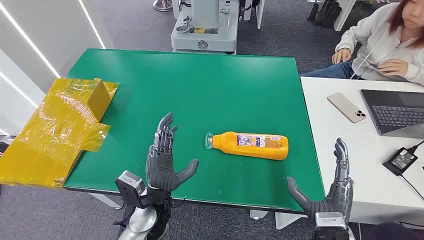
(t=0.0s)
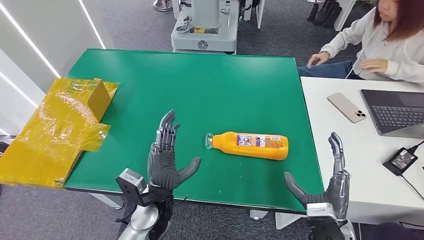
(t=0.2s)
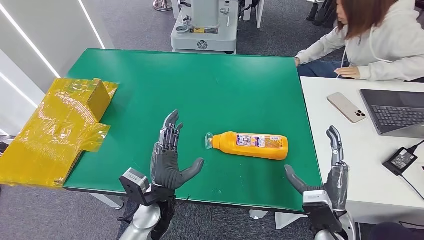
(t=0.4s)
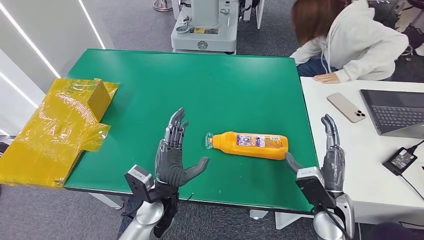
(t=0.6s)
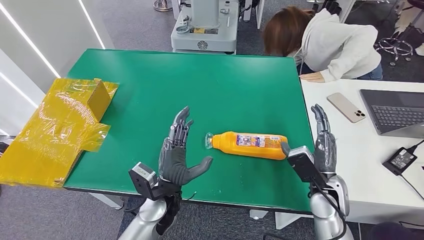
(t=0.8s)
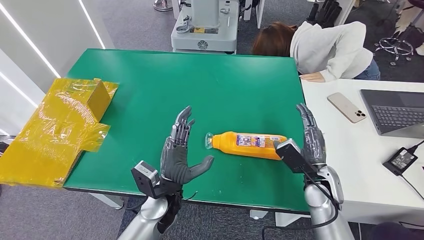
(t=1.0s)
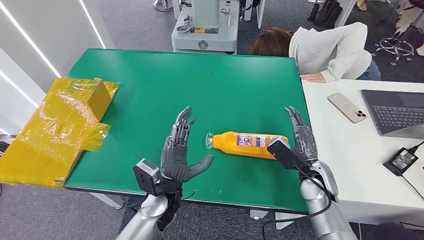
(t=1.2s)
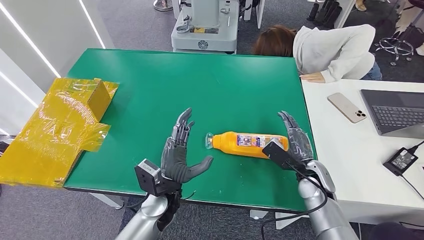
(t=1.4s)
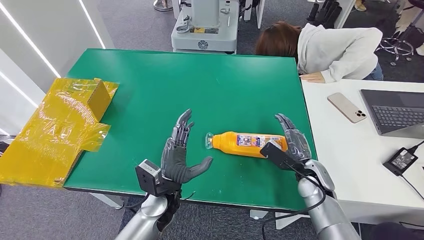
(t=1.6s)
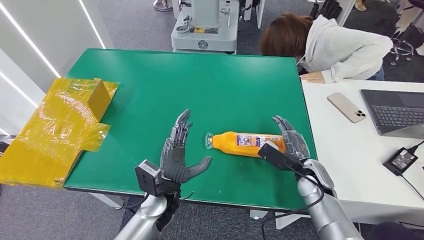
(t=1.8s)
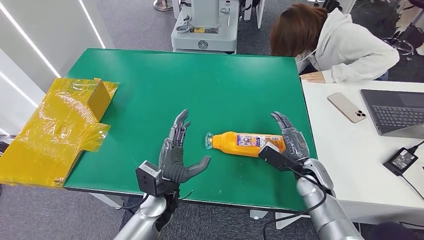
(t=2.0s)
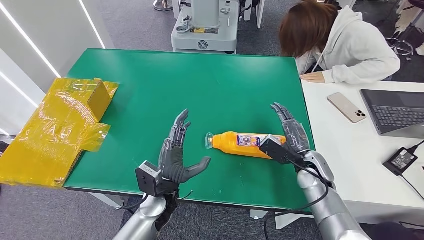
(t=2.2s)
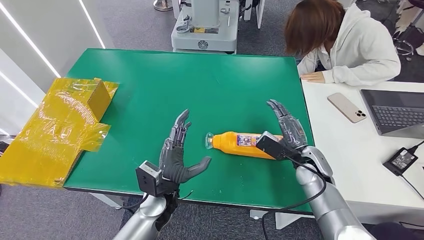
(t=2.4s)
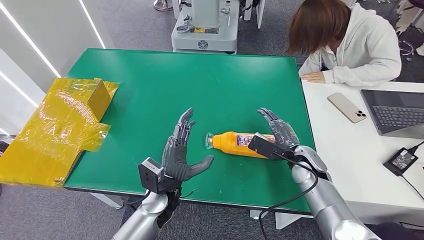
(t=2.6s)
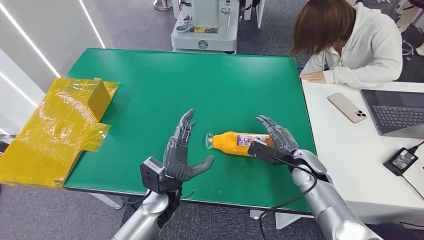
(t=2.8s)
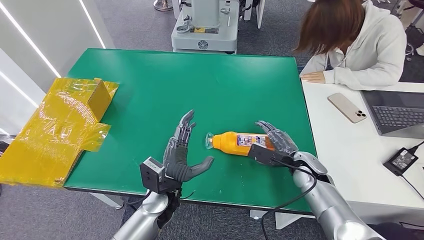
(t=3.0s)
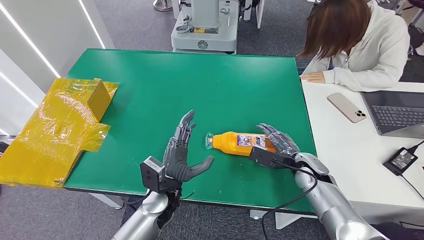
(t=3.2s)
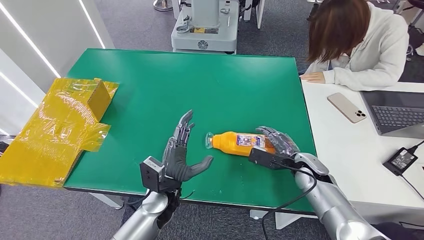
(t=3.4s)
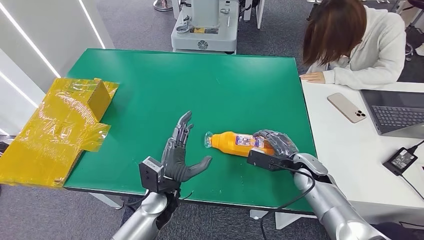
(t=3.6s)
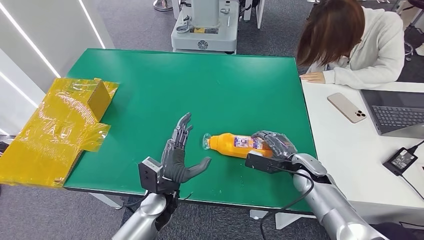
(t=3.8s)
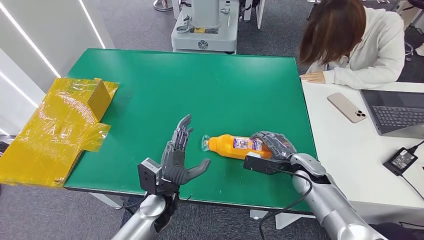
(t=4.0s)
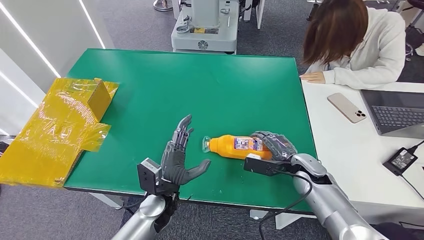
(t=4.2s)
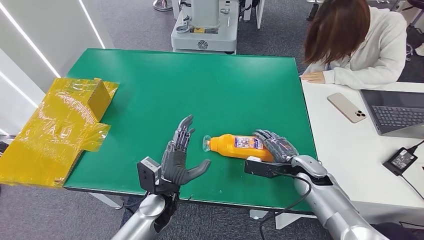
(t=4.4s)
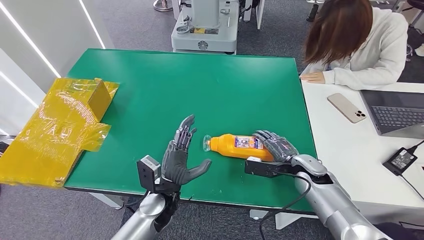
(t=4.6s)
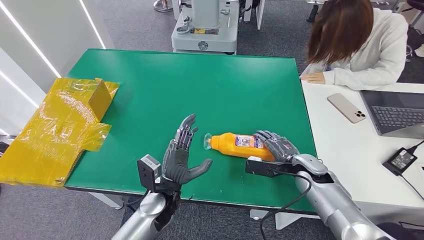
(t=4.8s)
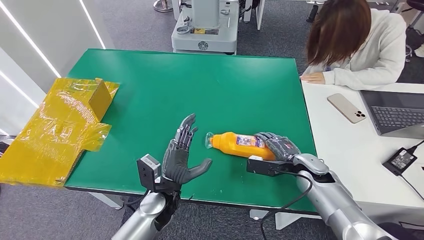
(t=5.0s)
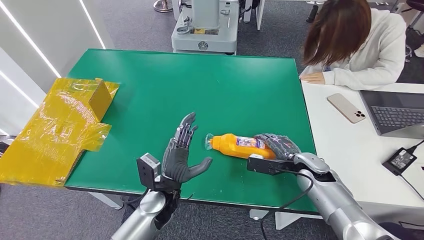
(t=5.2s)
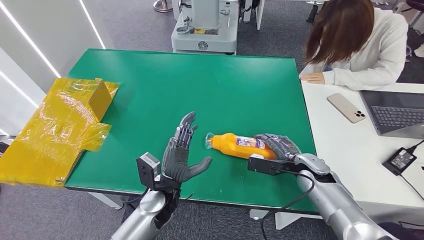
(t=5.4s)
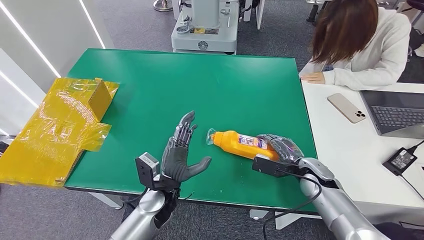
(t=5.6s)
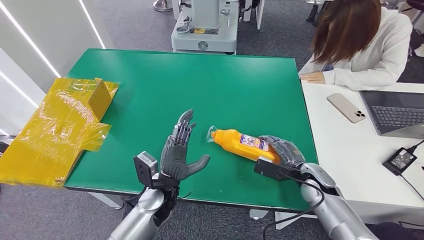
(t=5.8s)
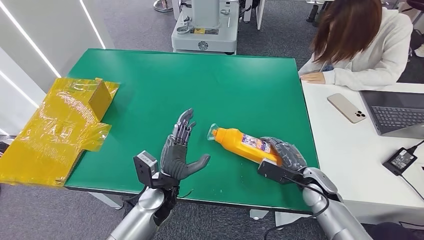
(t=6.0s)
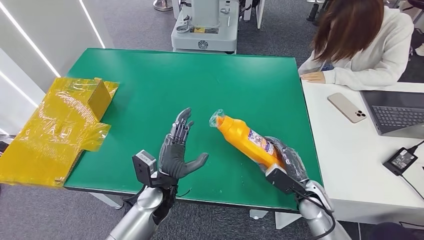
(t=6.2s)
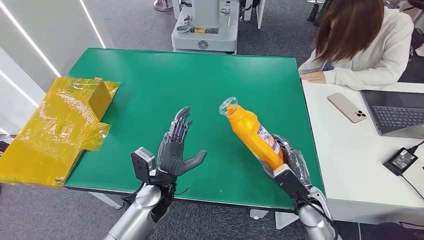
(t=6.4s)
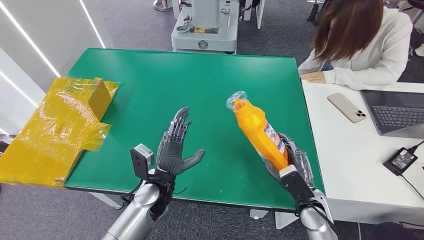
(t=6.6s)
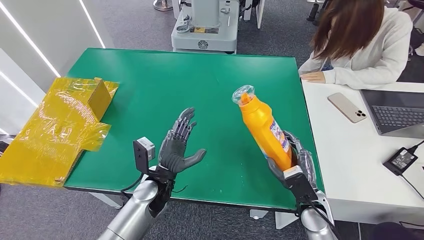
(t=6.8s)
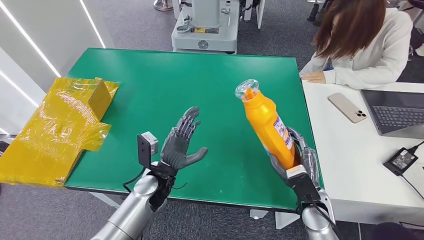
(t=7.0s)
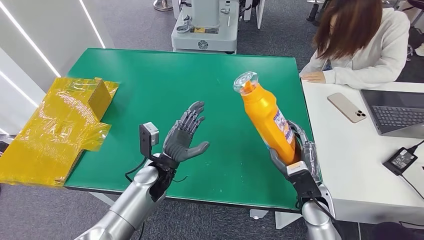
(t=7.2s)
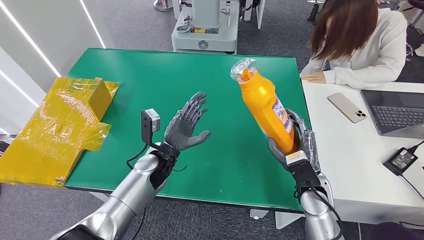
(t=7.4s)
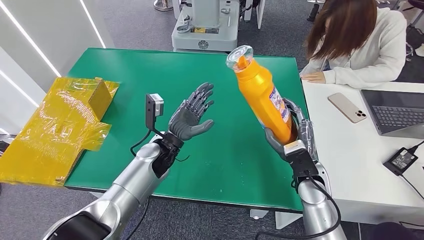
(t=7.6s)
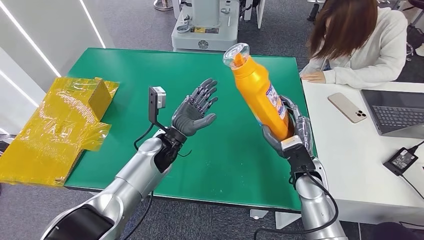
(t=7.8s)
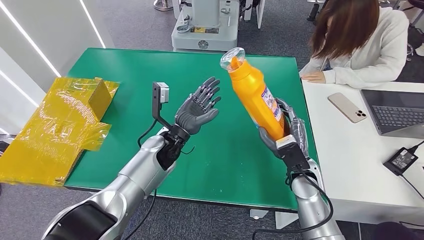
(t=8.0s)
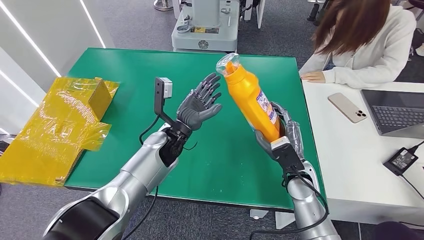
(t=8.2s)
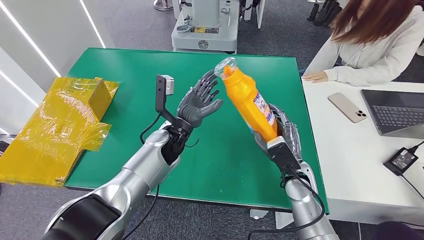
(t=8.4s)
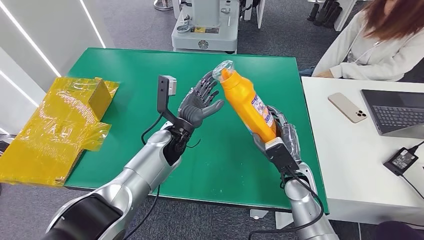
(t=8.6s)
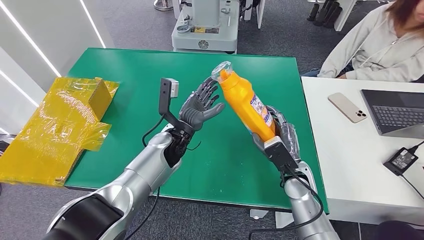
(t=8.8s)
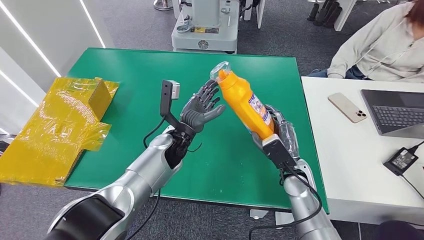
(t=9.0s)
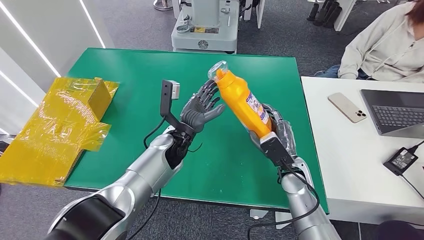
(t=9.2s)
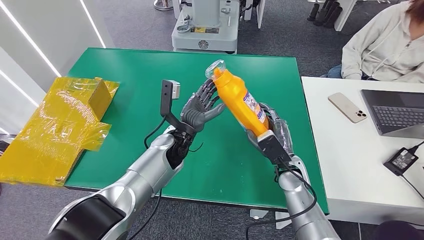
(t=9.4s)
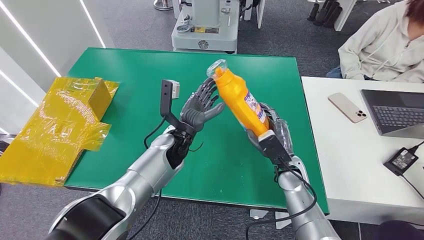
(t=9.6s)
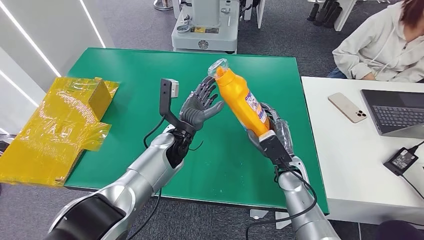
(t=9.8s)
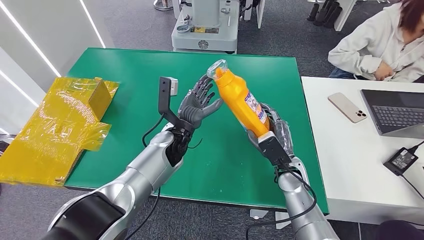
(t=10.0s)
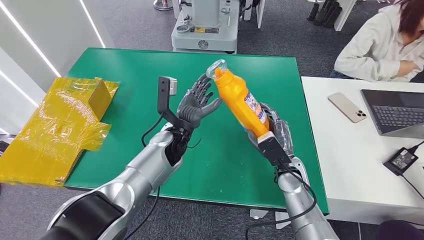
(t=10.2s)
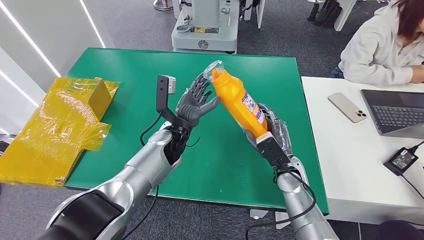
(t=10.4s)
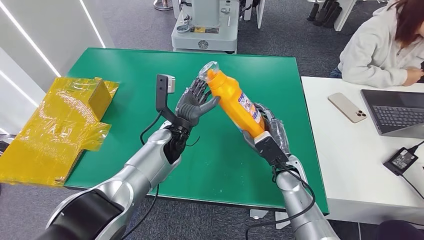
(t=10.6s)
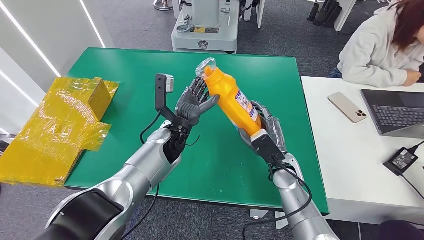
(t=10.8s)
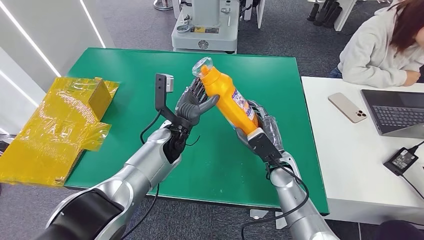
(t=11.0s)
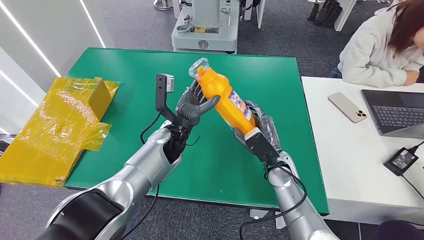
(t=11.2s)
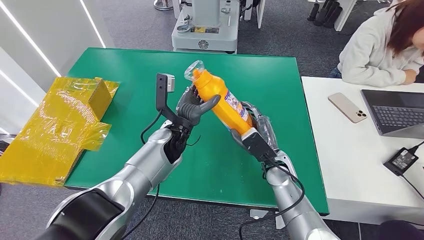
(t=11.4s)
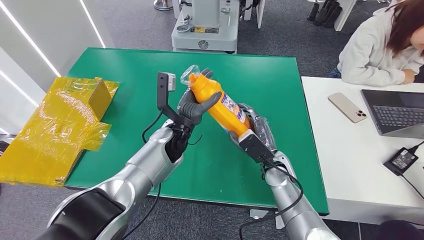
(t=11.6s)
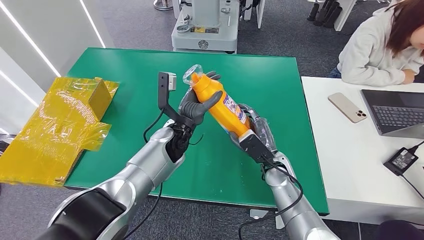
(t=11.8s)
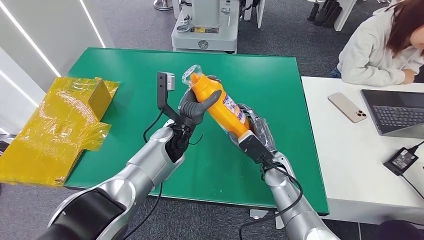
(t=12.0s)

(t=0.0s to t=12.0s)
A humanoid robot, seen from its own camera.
Step, t=0.0s - t=8.0s: Pick up the bottle from the table.
t=1.6s - t=3.0s: The hands make only small movements.
t=3.0s - t=4.4s: The hands move only a little.
t=9.0s - t=12.0s: The hands move only a little.

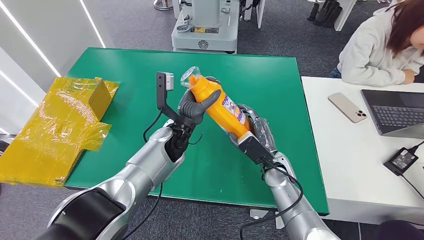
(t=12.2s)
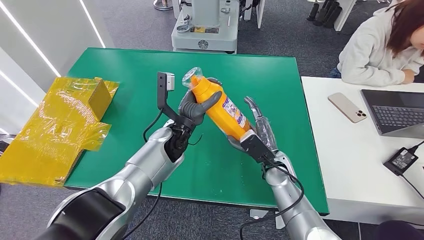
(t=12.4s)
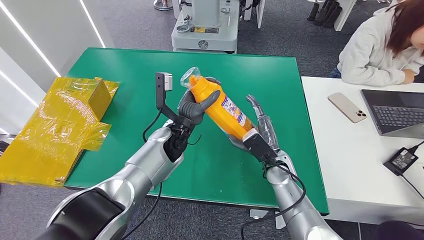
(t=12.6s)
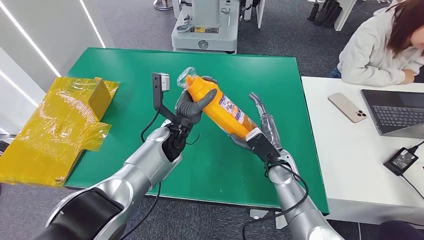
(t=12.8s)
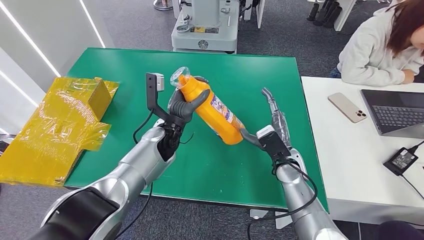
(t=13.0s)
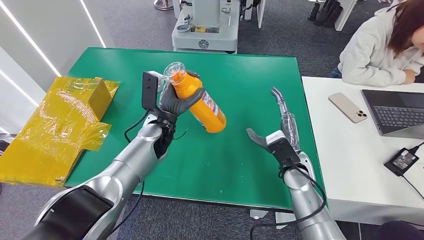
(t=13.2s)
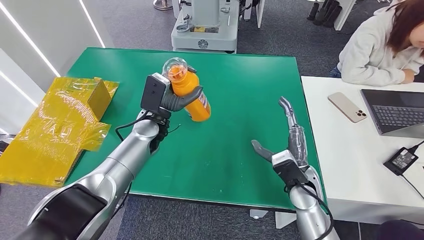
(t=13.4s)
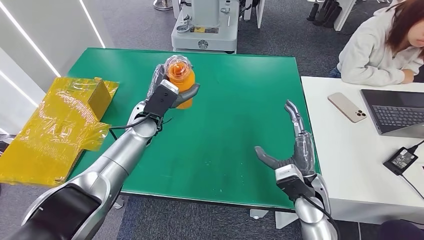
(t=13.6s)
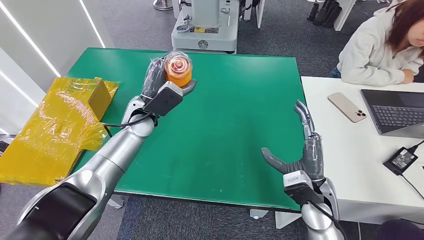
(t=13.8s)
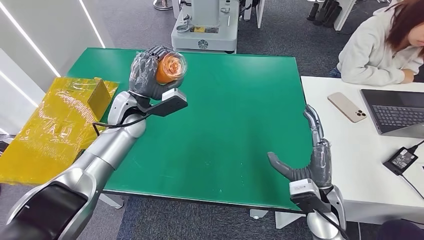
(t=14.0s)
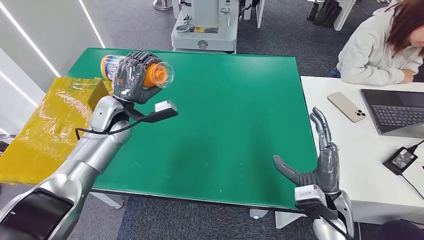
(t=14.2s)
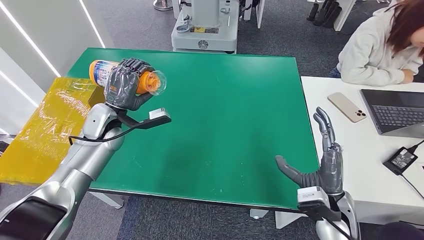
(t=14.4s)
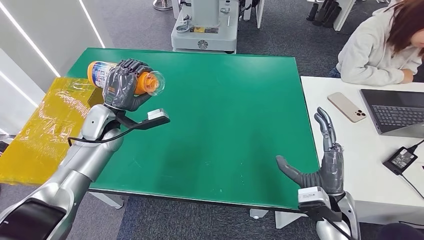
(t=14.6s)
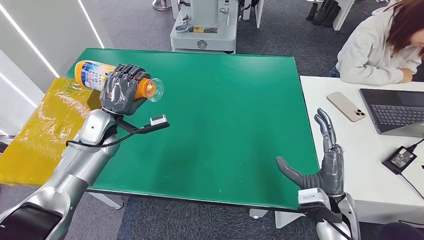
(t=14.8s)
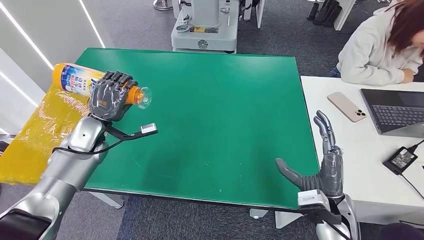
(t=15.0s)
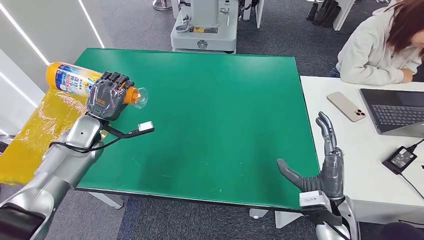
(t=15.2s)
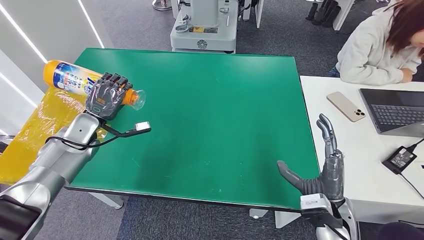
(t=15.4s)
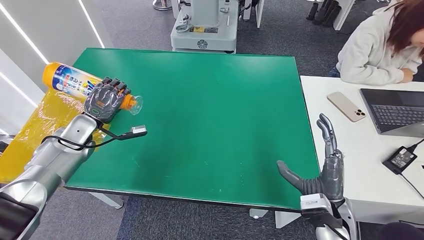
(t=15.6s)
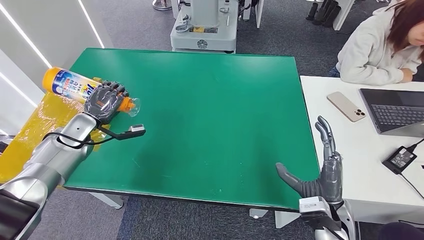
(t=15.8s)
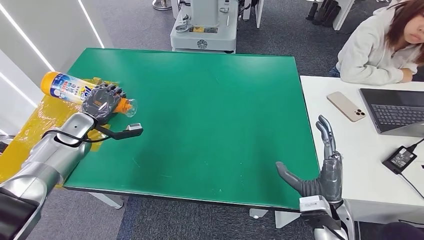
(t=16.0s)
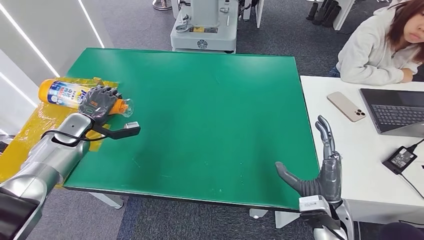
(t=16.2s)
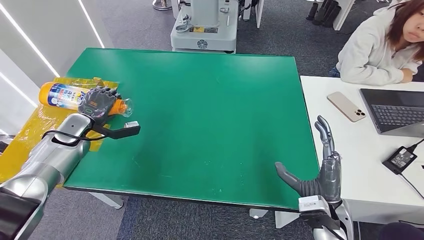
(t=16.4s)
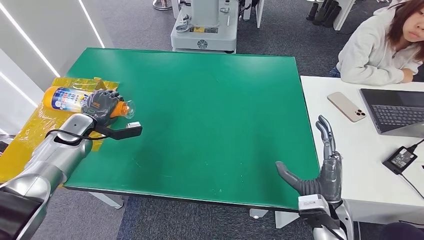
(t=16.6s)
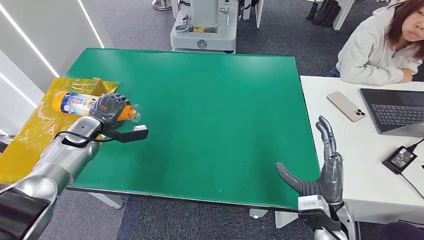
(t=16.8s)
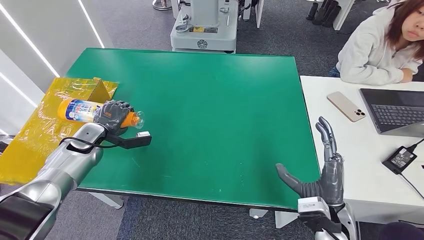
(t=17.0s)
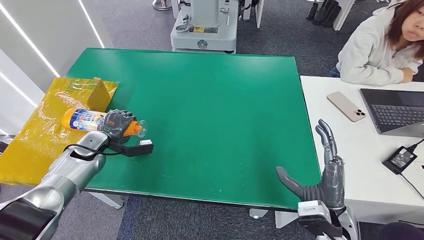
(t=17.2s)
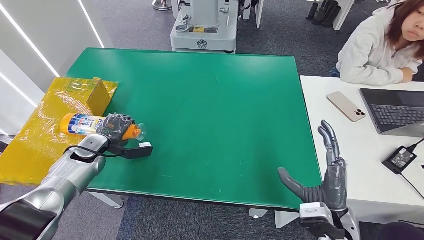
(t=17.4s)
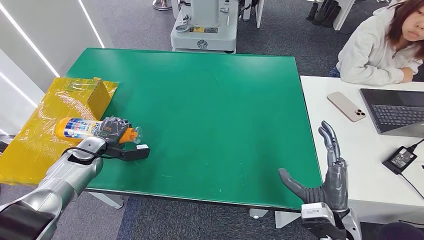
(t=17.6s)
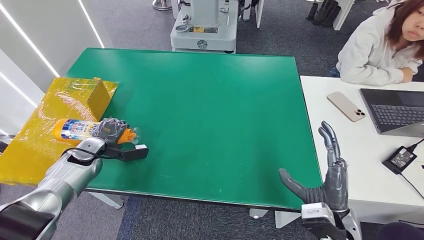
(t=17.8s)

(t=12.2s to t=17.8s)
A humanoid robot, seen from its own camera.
t=15.0s - t=16.4s: The left hand goes some 5 cm to the left.
t=16.4s - t=17.8s: The left hand moves downward, some 5 cm.
